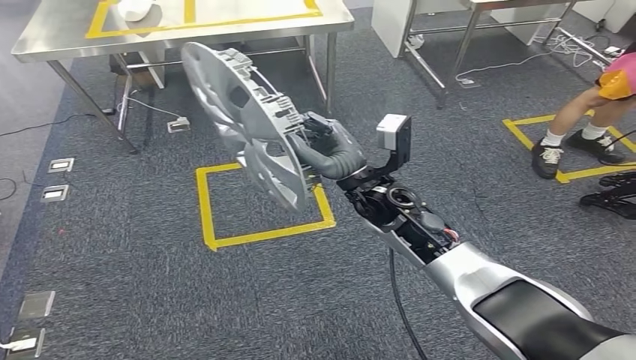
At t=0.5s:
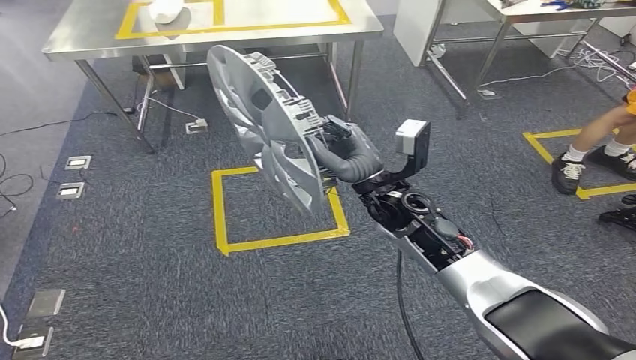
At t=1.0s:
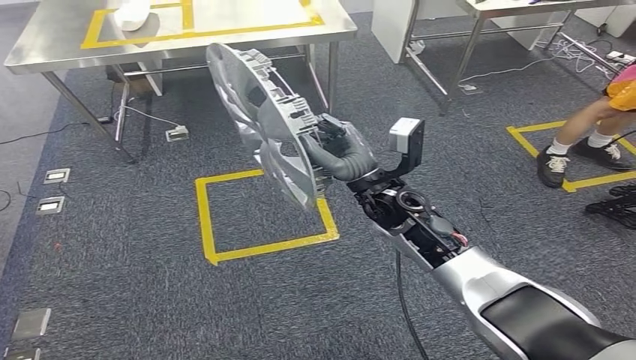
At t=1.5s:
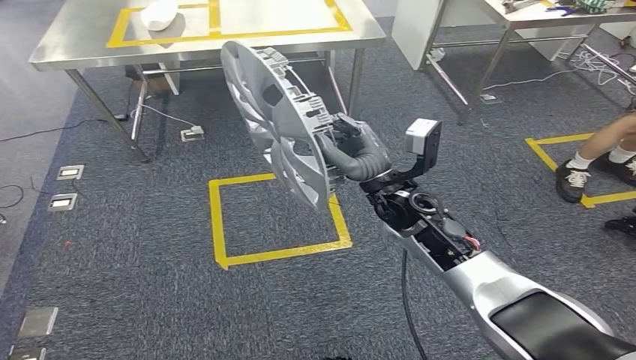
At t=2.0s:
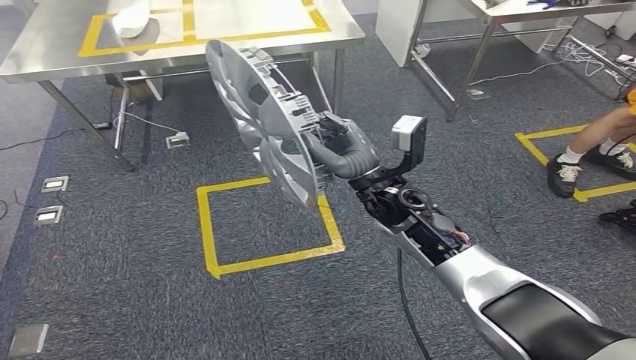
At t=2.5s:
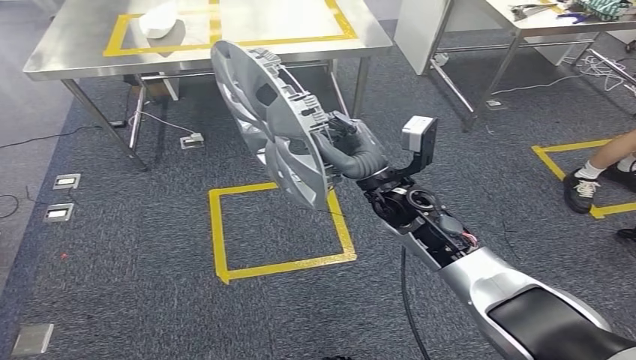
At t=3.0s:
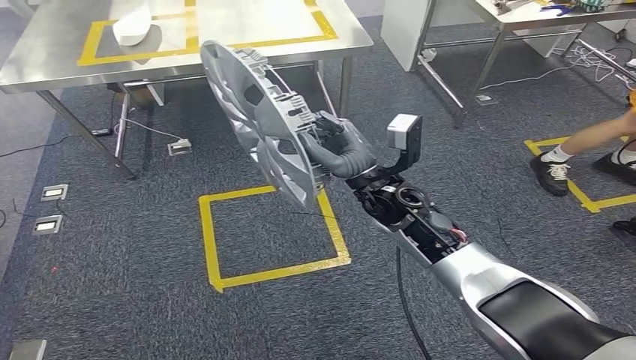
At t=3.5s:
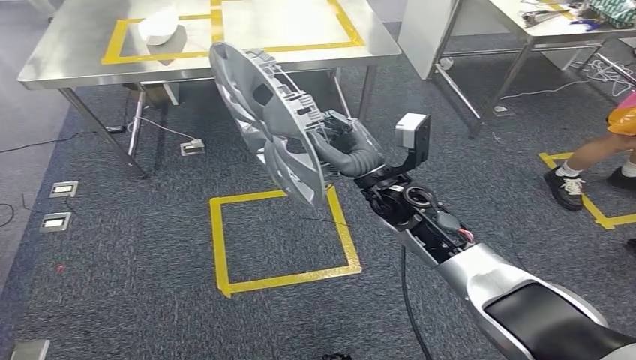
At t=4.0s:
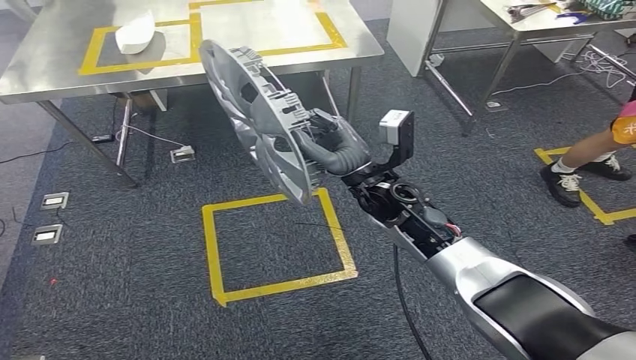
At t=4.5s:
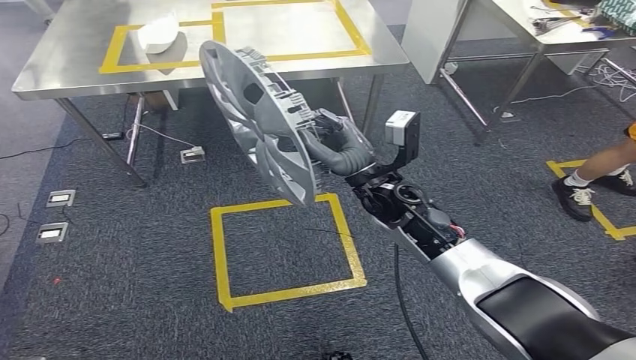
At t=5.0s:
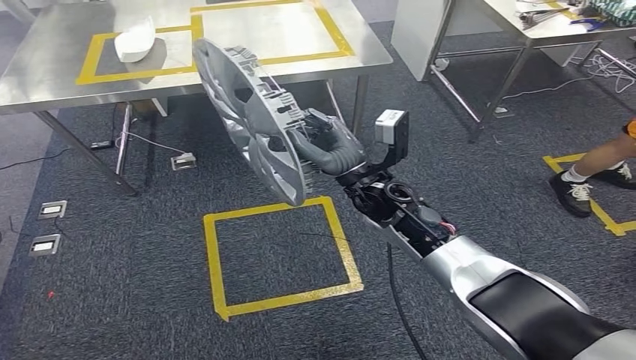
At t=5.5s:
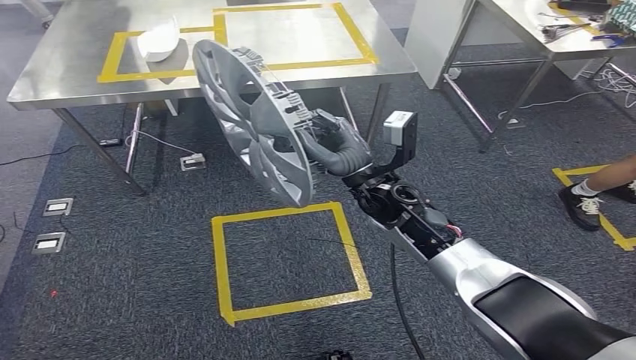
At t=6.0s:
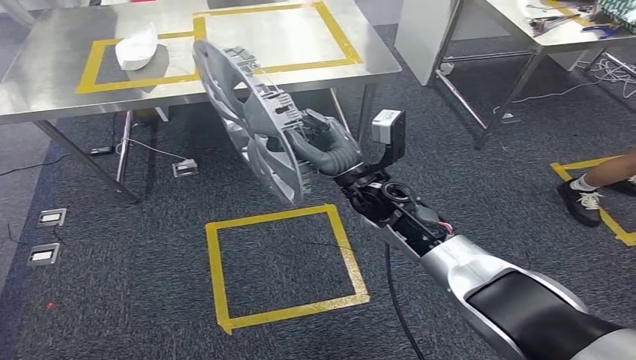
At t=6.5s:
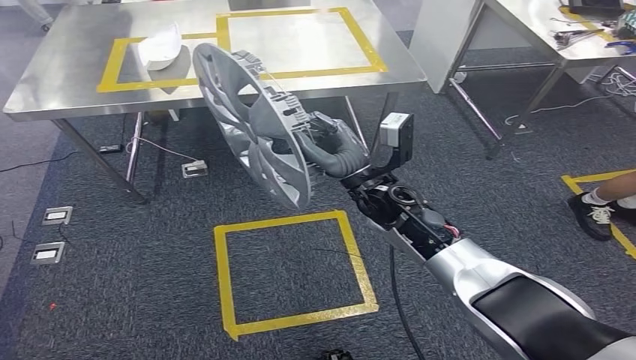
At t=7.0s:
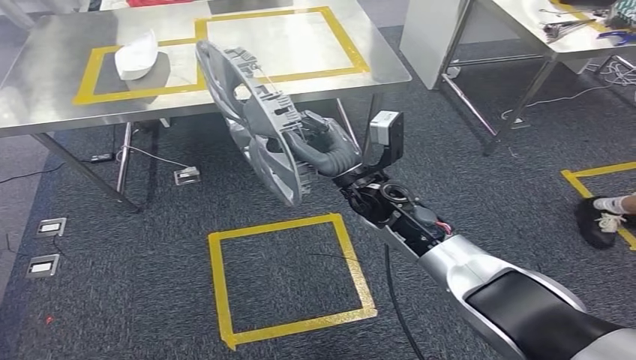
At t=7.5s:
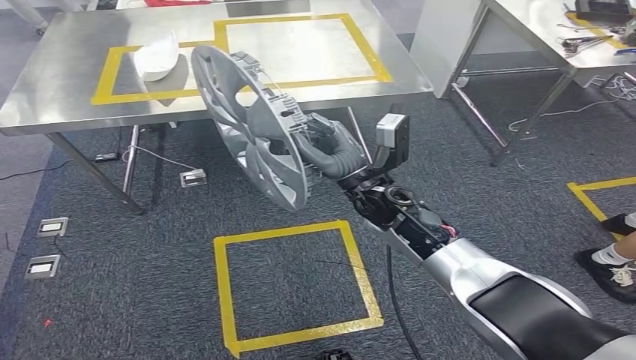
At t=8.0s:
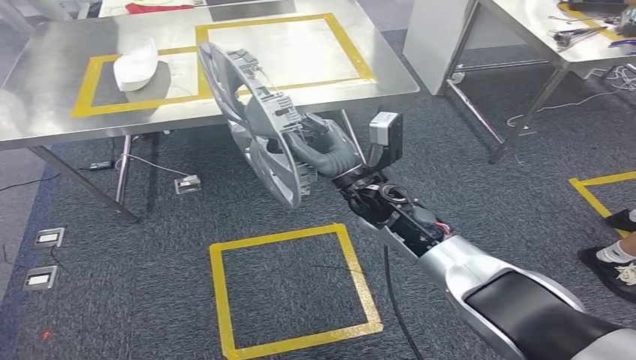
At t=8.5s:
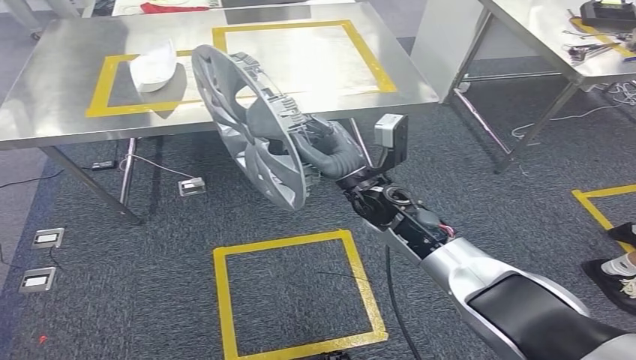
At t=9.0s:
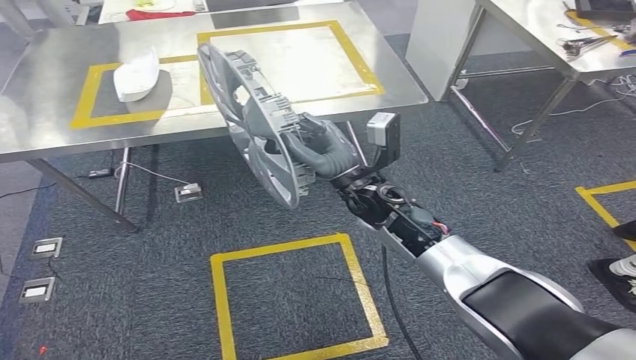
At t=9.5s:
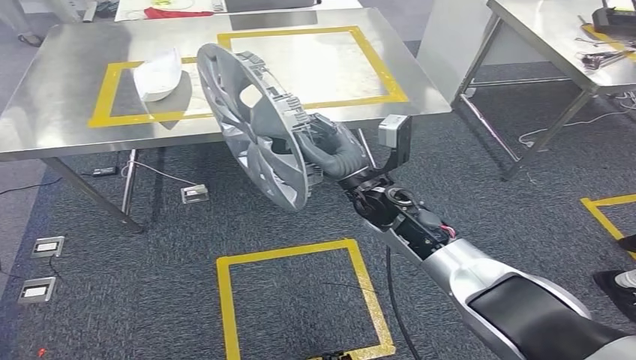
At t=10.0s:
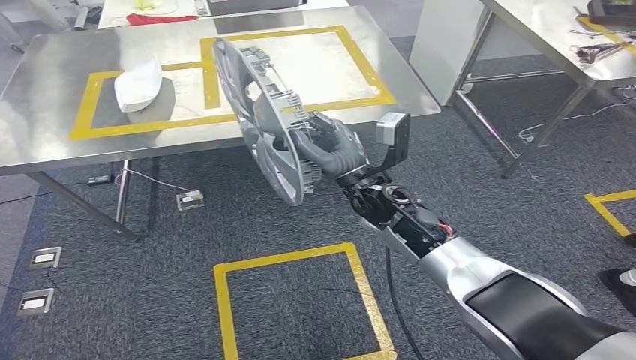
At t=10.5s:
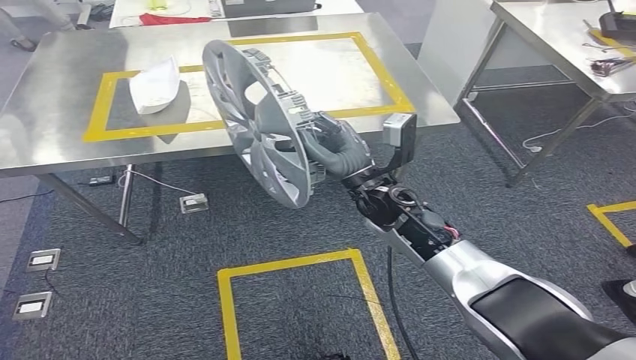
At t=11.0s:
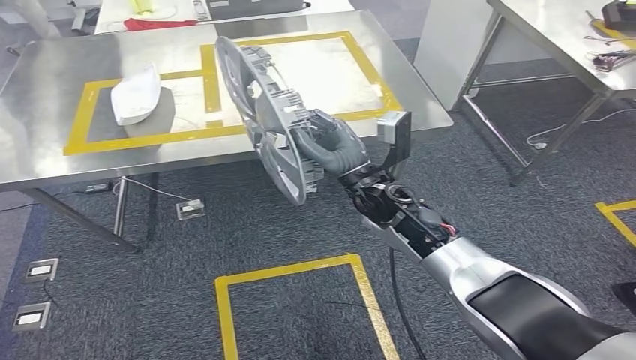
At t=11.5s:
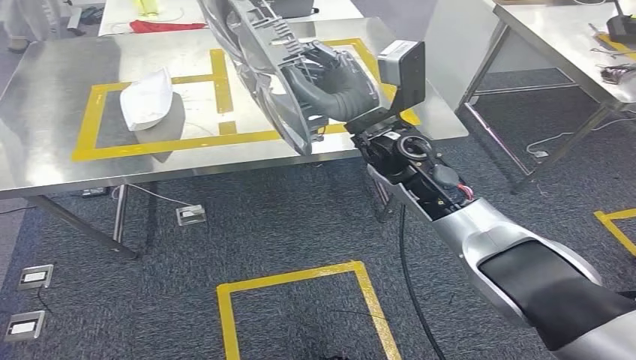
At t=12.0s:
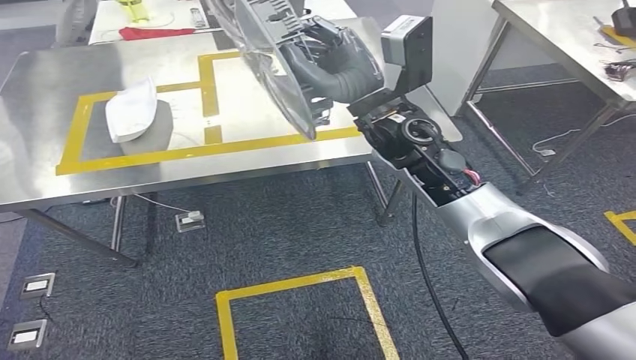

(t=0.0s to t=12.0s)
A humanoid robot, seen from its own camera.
Step, t=0.0s - t=6.0s: Bring the small component to the front of the workbench.

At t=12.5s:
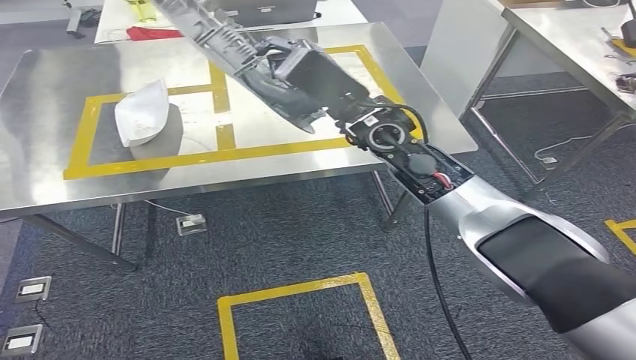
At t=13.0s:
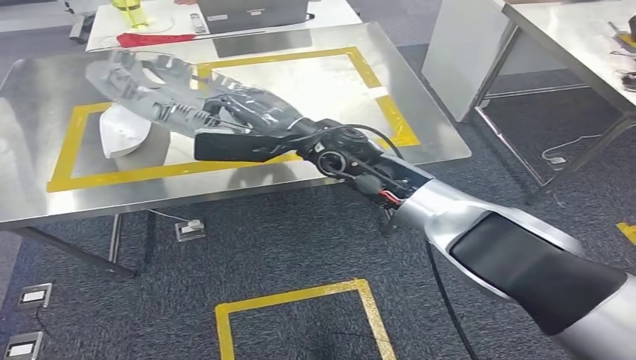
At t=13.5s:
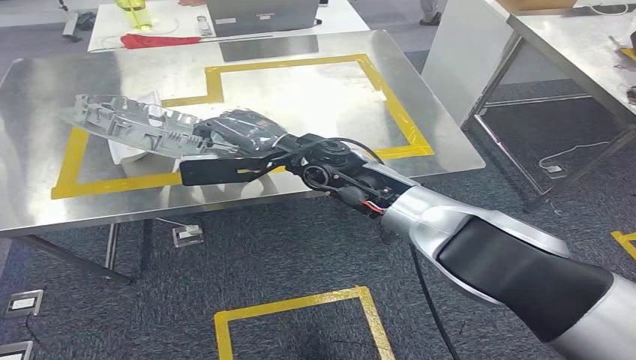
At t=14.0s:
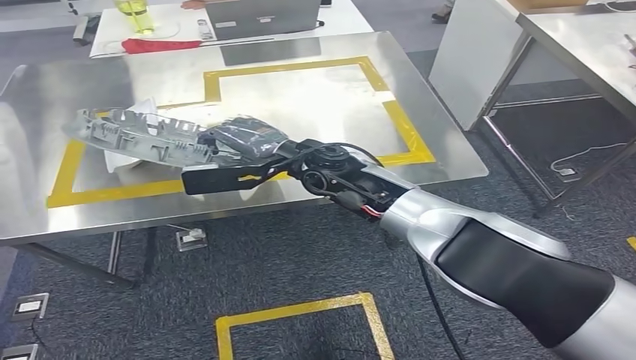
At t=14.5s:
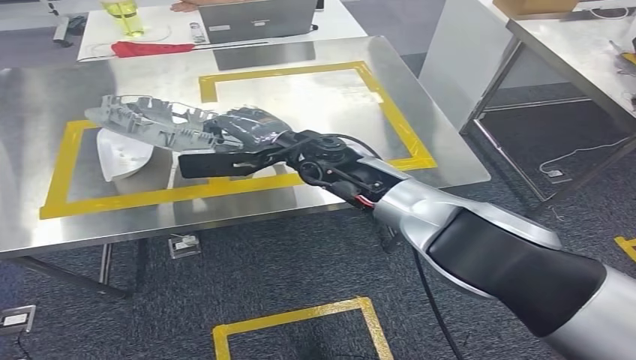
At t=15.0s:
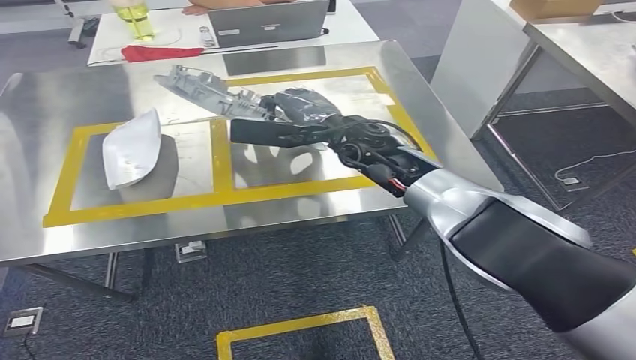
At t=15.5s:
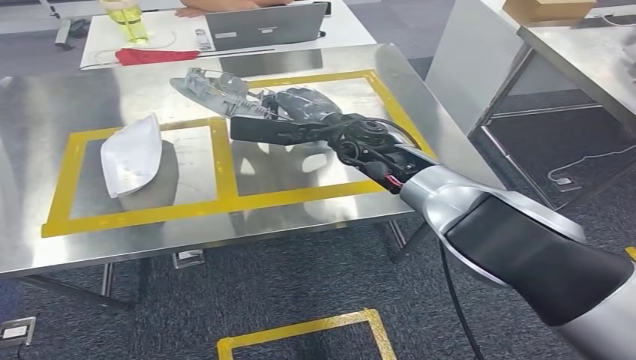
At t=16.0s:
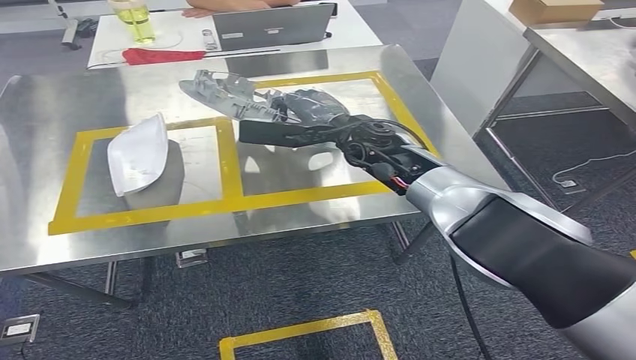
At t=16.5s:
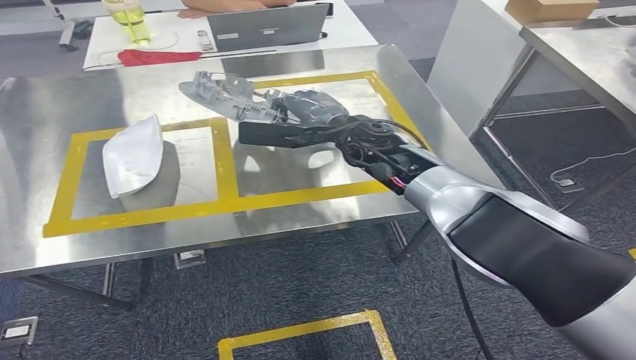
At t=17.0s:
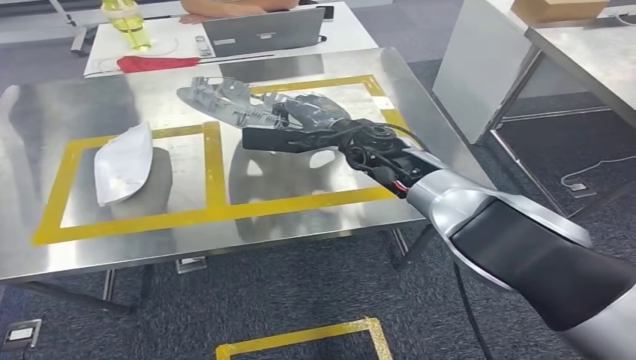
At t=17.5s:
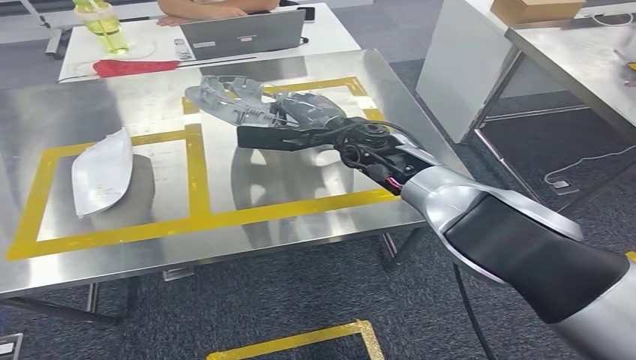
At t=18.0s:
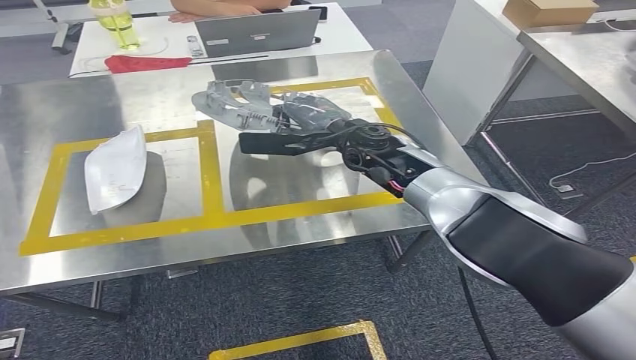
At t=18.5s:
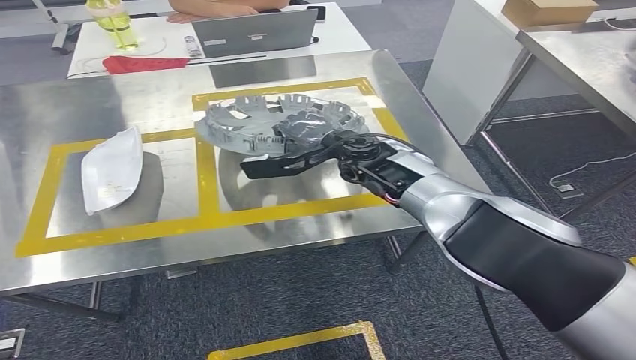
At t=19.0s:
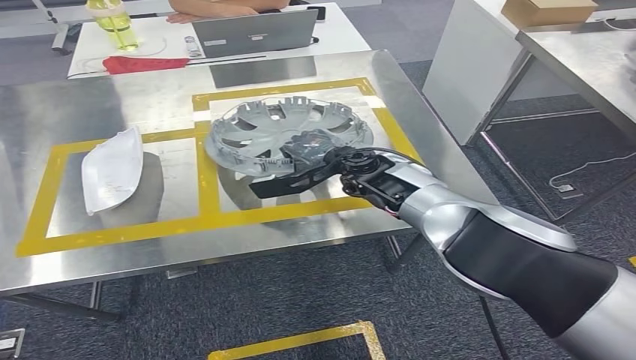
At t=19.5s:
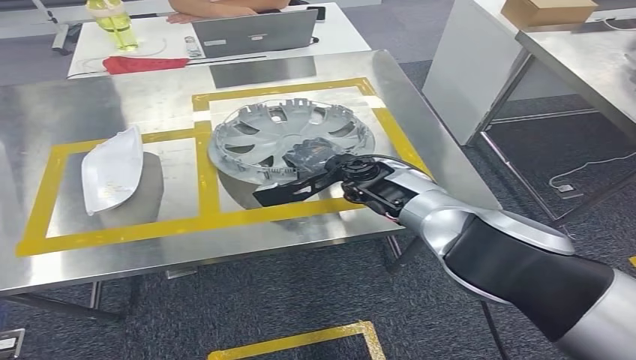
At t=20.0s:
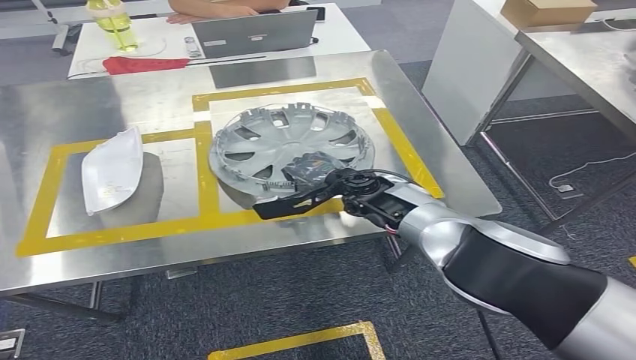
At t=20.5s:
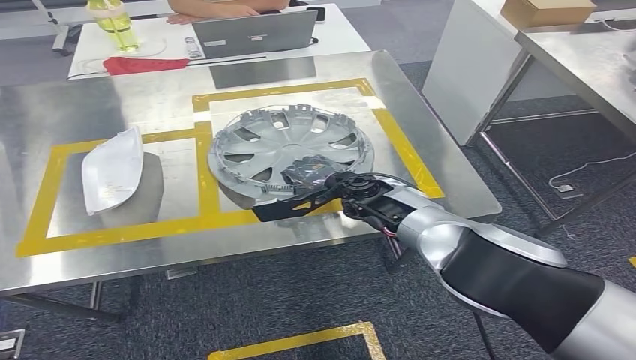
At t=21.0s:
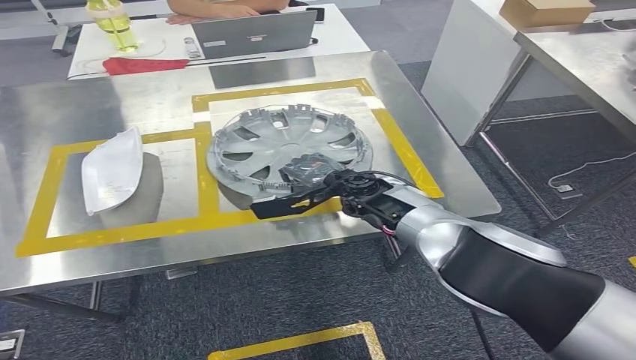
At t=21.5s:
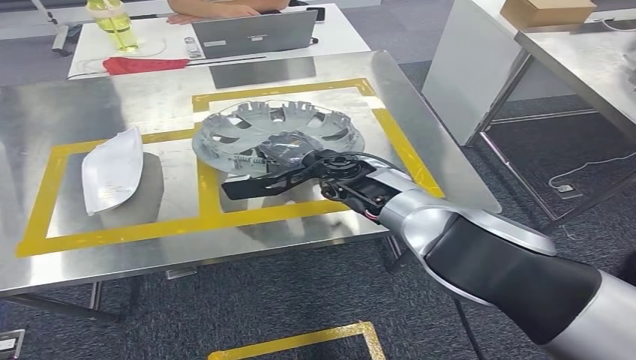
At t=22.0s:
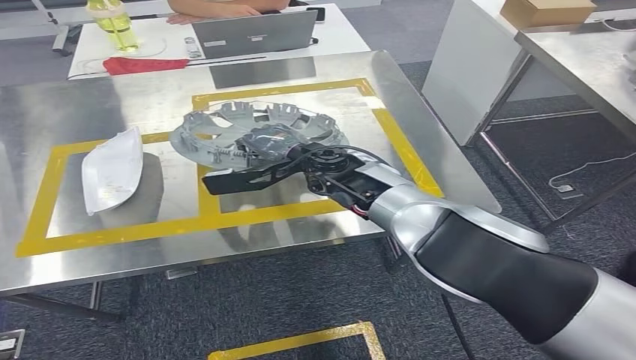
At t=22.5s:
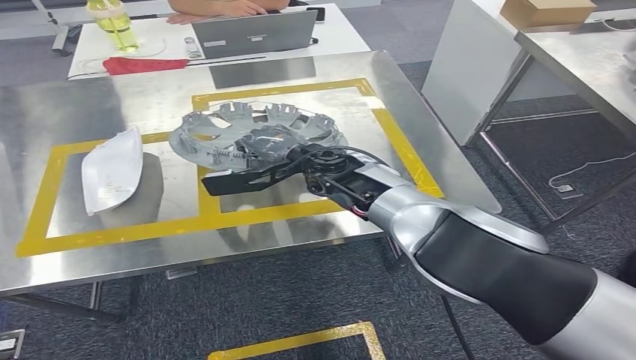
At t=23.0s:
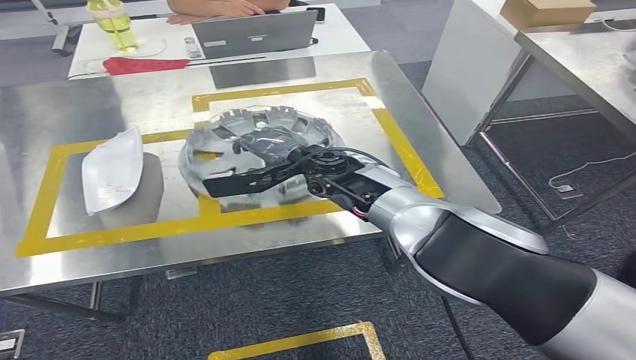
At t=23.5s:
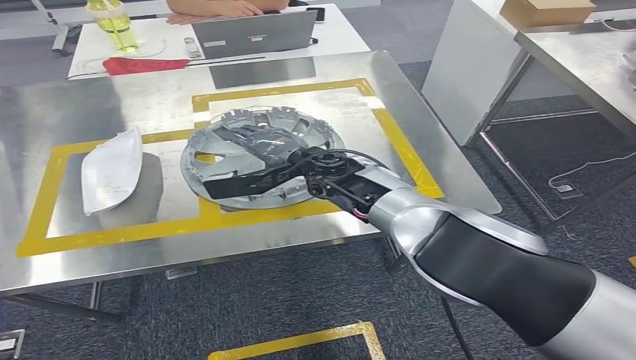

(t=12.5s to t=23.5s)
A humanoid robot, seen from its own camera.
Step, t=12.5s - t=23.0s: Insert the small component into the corresponding slot on the workbench.
t=18.0s - t=20.0s: The right hand moves downward, about 10 cm.
t=20.0s - t=21.5s: The right hand ends up roughly 5 cm from where it was.
t=21.5s - t=23.5s: There are only small adjustments of the hands.
